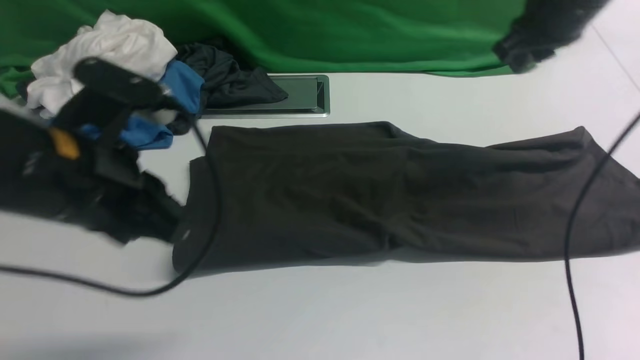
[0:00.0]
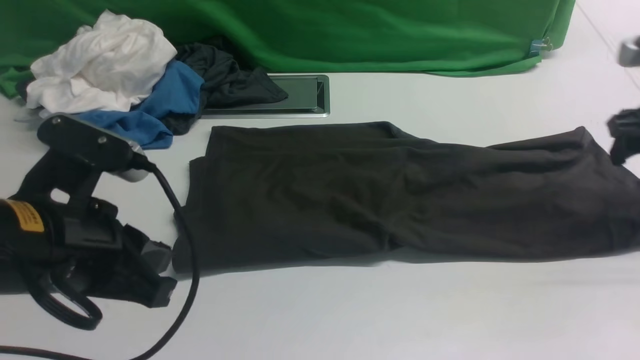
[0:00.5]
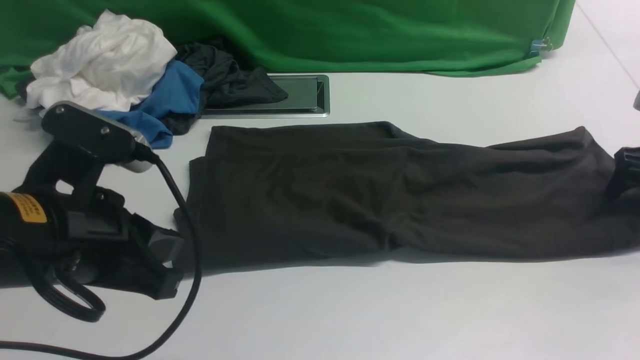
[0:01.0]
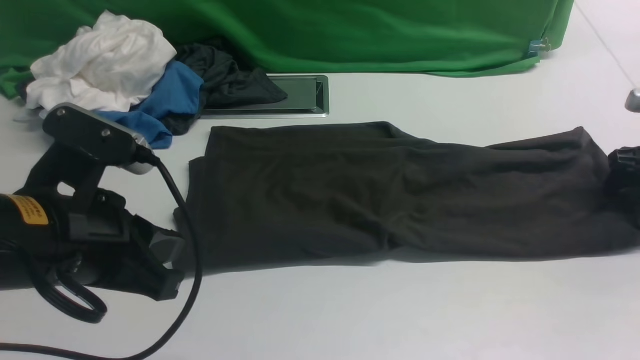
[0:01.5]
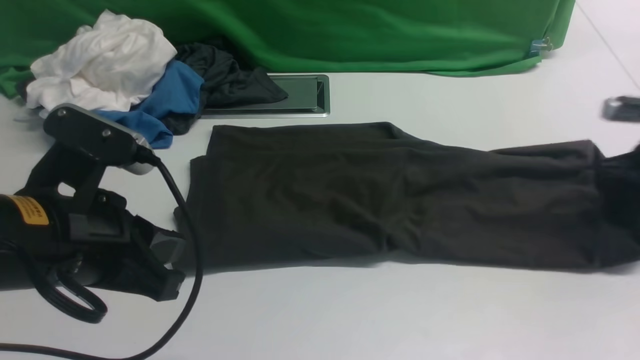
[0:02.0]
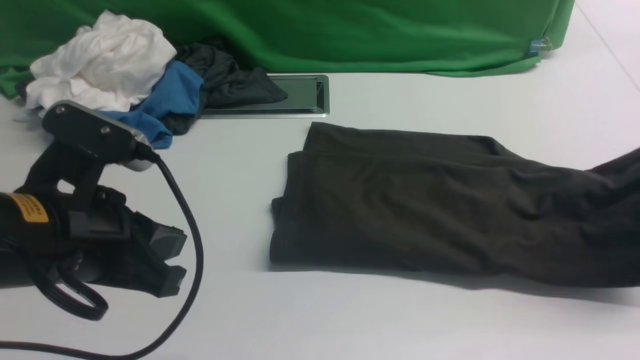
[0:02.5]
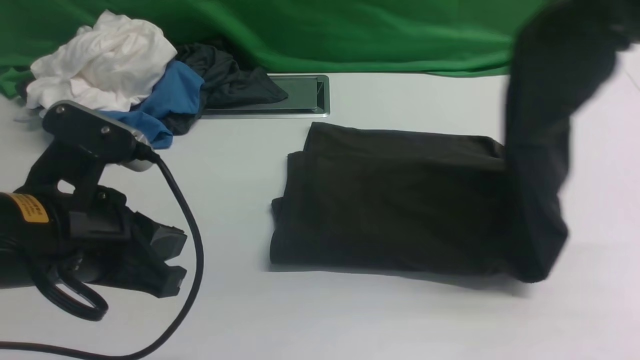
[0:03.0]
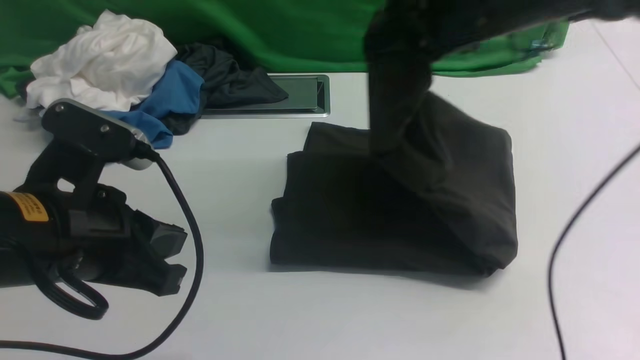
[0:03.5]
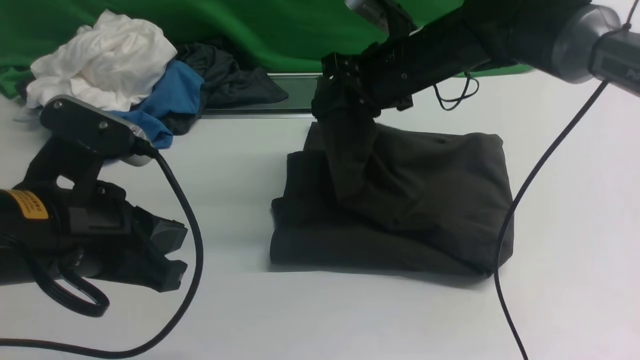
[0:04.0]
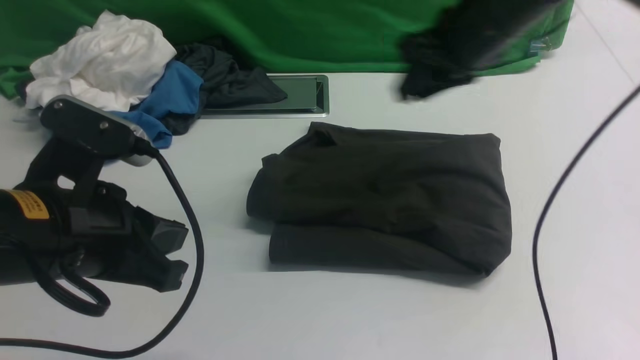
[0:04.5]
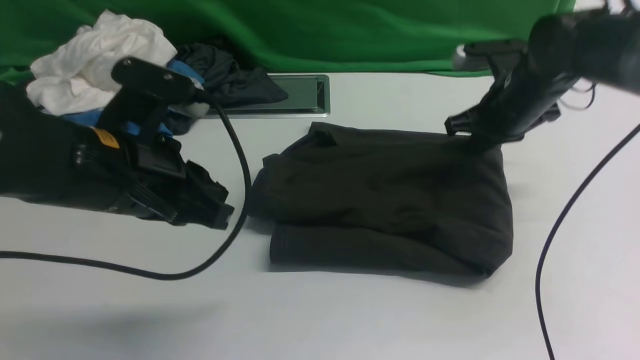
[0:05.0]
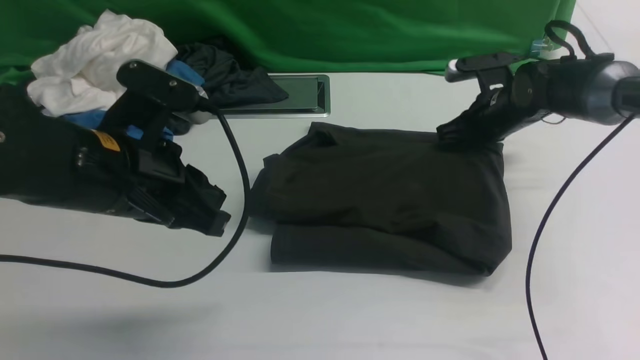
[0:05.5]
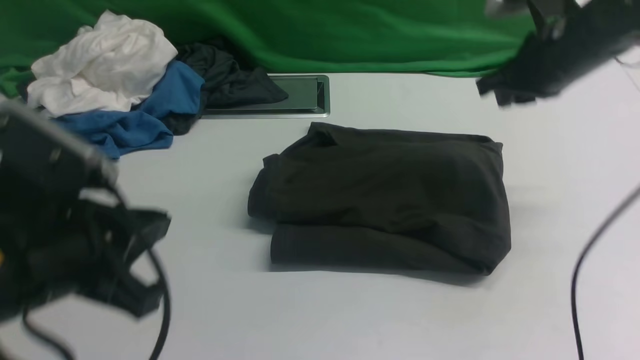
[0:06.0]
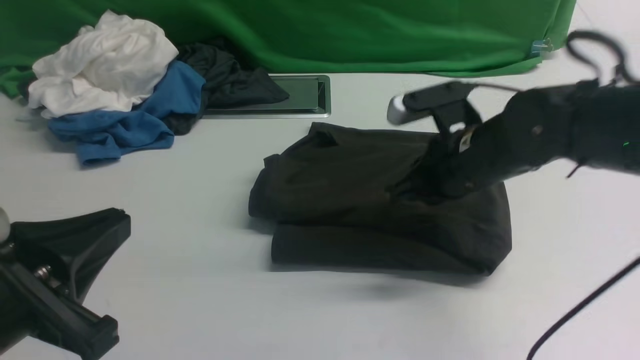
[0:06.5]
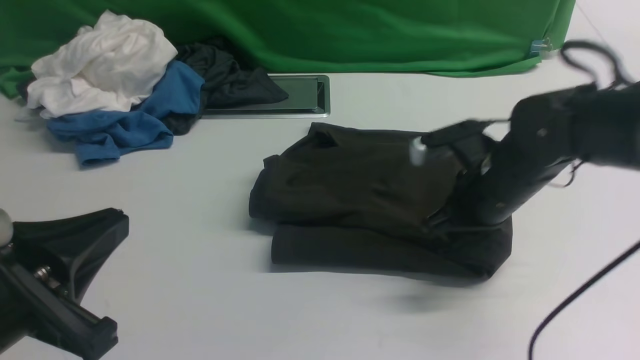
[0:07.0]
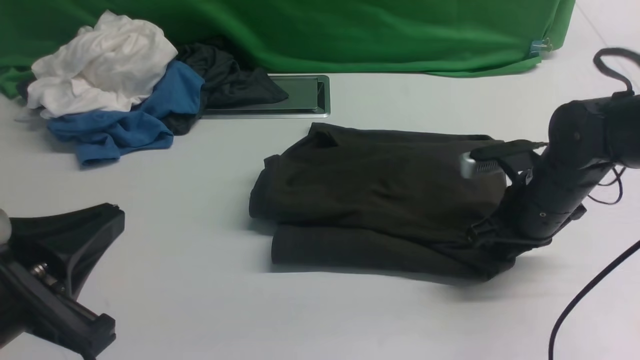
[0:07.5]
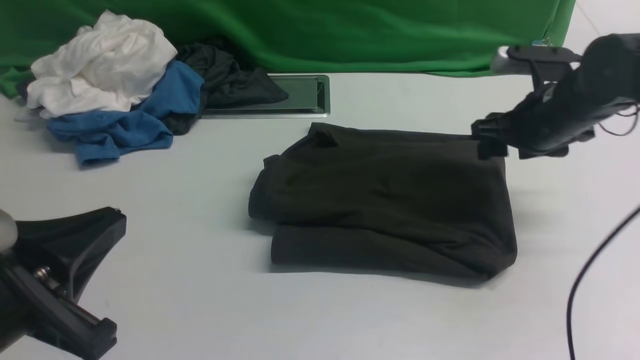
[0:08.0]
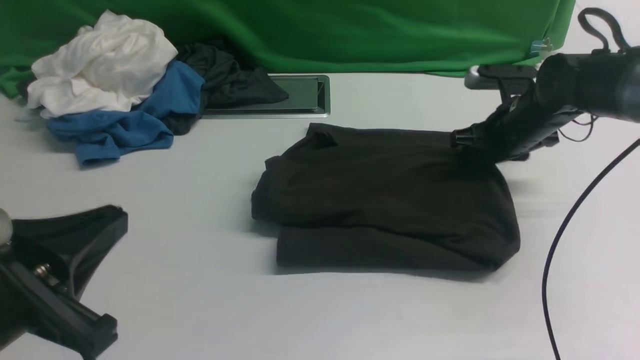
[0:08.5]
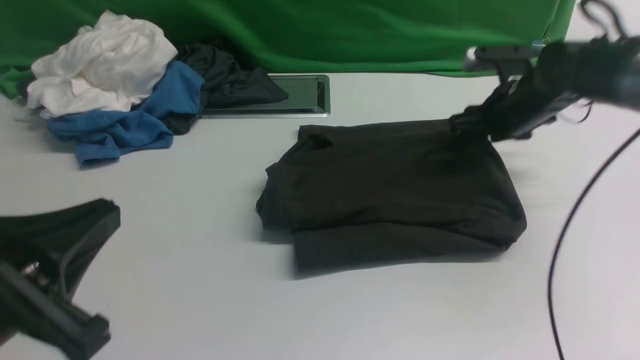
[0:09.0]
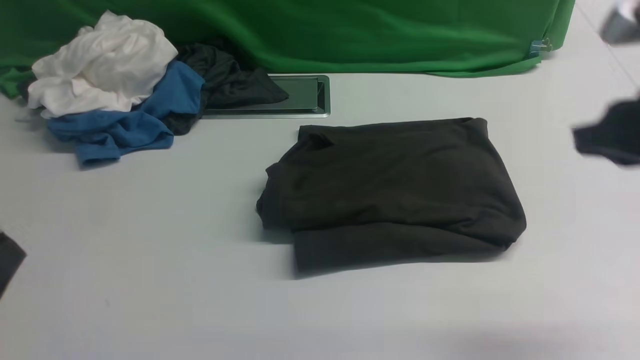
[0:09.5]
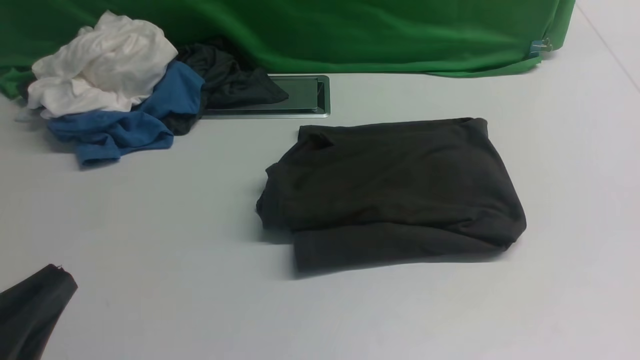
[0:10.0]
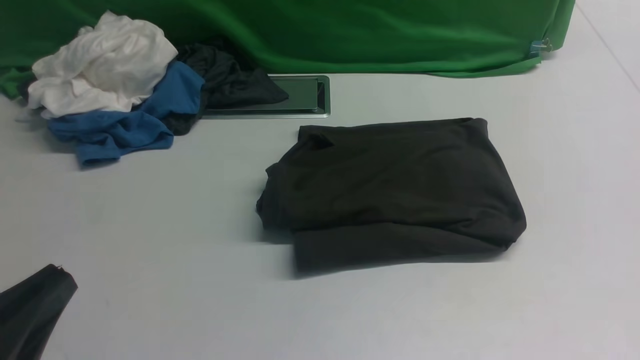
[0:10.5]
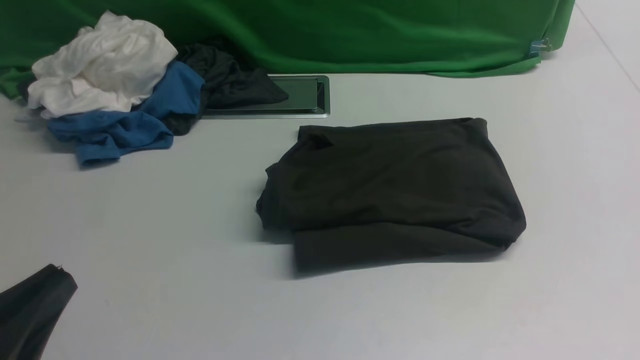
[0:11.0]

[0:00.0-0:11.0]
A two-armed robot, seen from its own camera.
Step, 0:00.0 to 0:02.0: use the right arm to clamp the right edge of the fabric.
Step, 0:02.5 to 0:04.0: use the right arm to drag the right edge of the fabric to the left and folds it over the left edge.
0:00.0 to 0:02.0: The right gripper heads to the right and downward, covering about 20 cm, and opens and closes again.
0:02.0 to 0:03.5: The right gripper shifts approximately 30 cm to the left and upward.
0:03.5 to 0:05.5: The left gripper is displaced forward by approximately 5 cm. The right gripper heads downward, to the right and forward, covering some 20 cm.
0:05.5 to 0:07.5: The two grippers go approximately 15 cm backward.
0:07.5 to 0:09.0: The right gripper is displaced forward by some 10 cm, and opens.
0:09.0 to 0:11.0: The left gripper ends up some 5 cm from where it was, while the right gripper travels backward by about 40 cm, and closes its fingers.

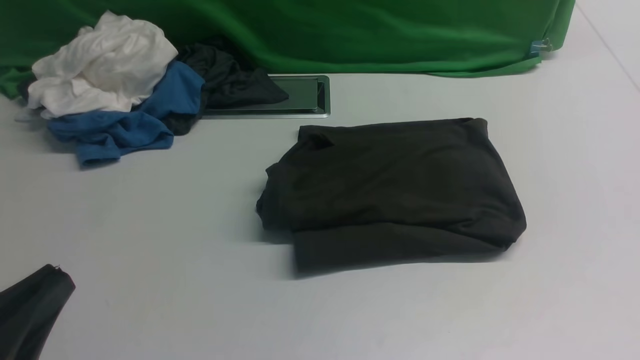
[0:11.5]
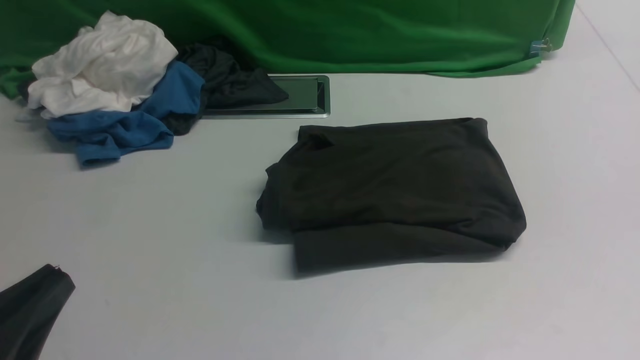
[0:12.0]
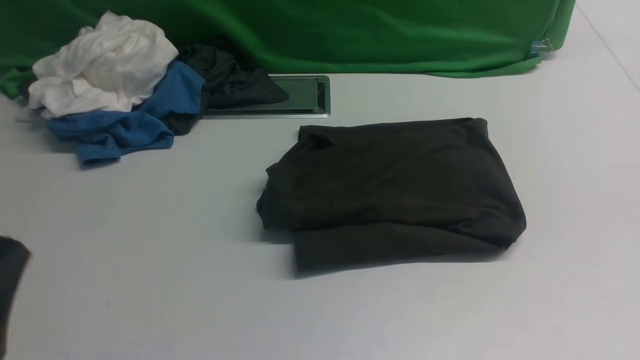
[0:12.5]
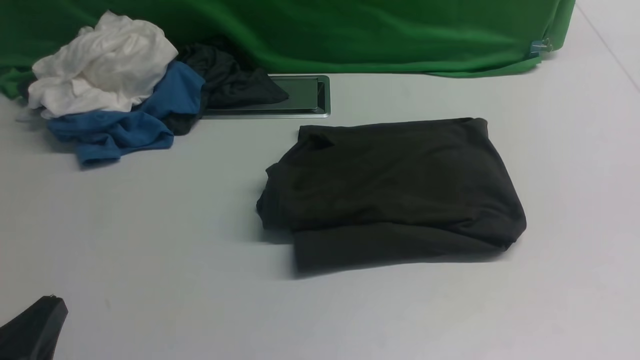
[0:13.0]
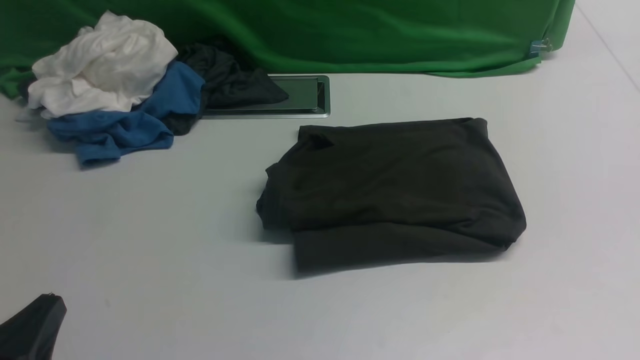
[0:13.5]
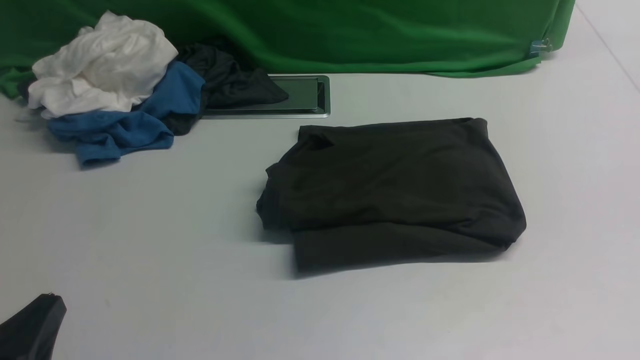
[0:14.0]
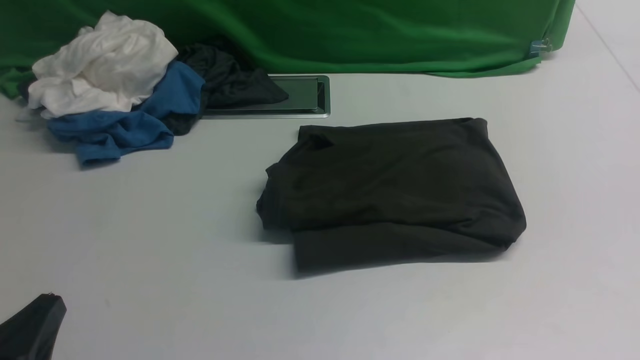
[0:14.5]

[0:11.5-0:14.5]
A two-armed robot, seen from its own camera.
0:11.5 to 0:13.0: The left gripper moves downward, approximately 5 cm.
0:13.0 to 0:14.5: Both grippers stay about where they are.

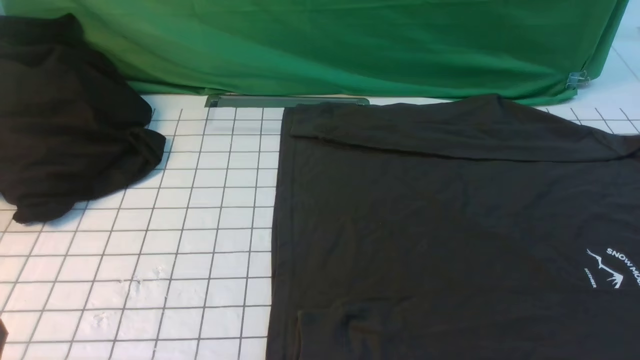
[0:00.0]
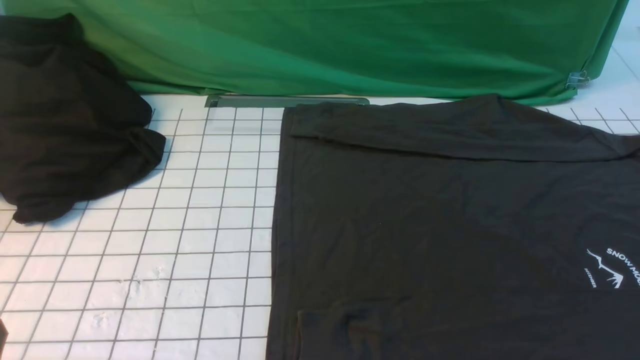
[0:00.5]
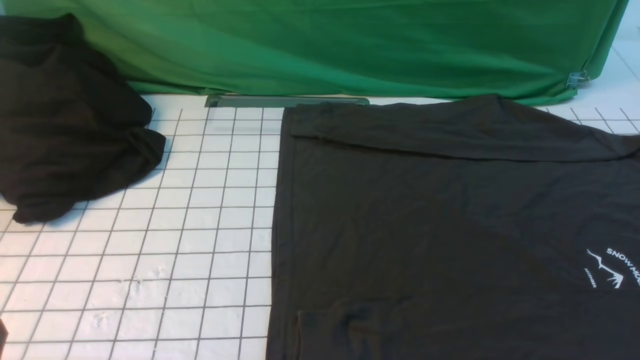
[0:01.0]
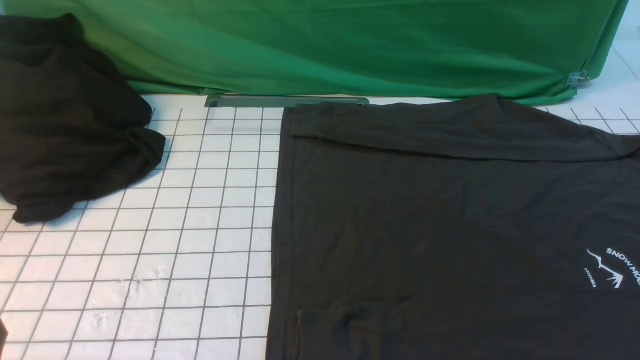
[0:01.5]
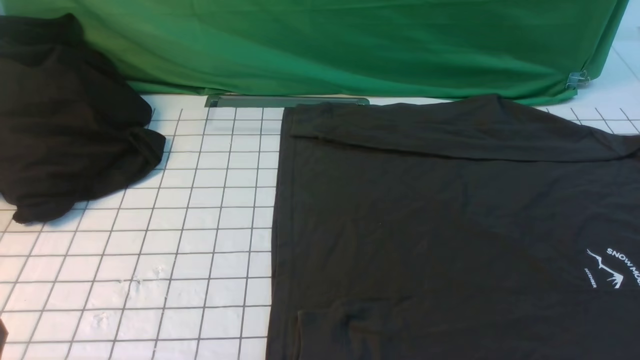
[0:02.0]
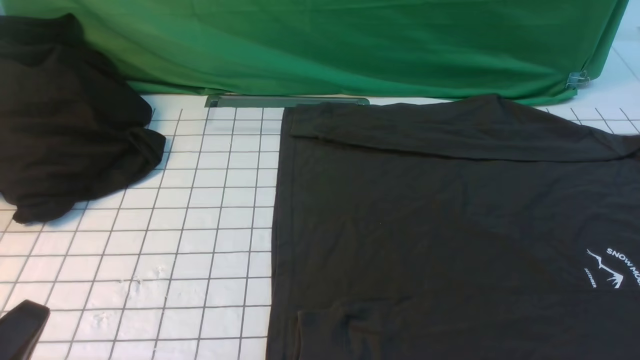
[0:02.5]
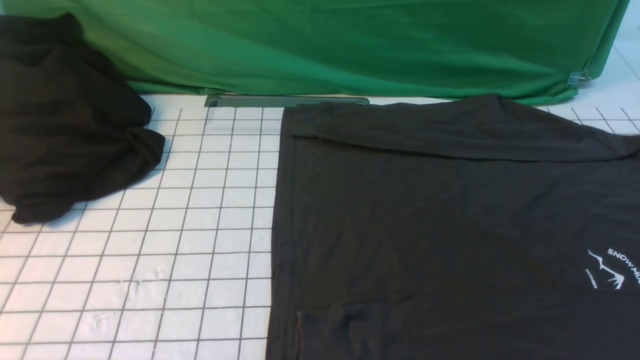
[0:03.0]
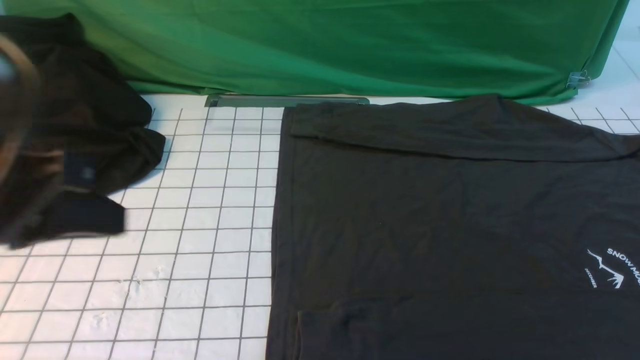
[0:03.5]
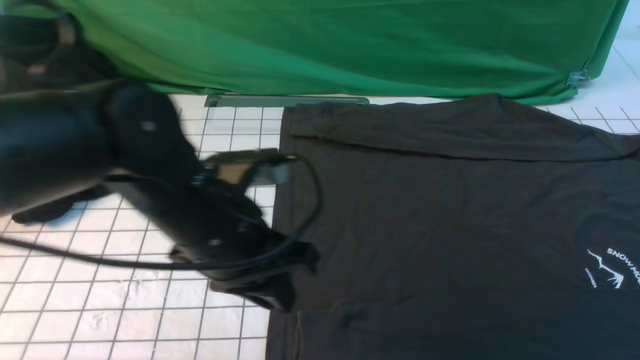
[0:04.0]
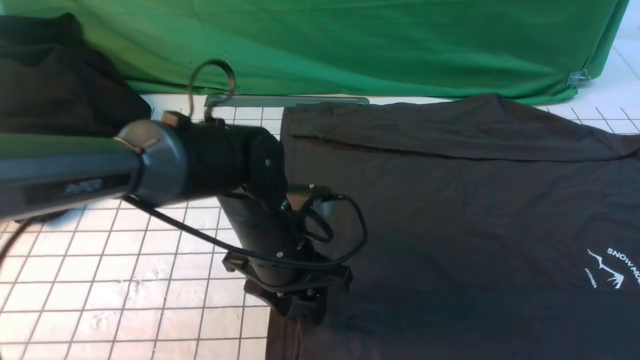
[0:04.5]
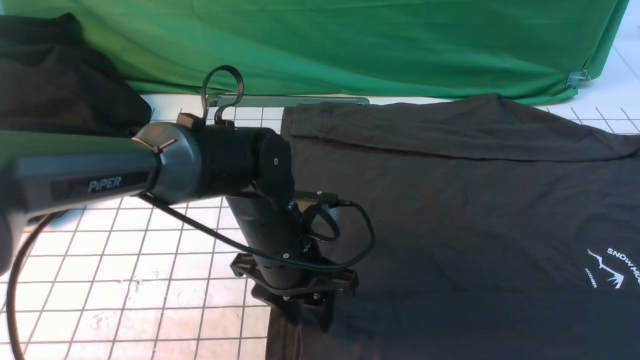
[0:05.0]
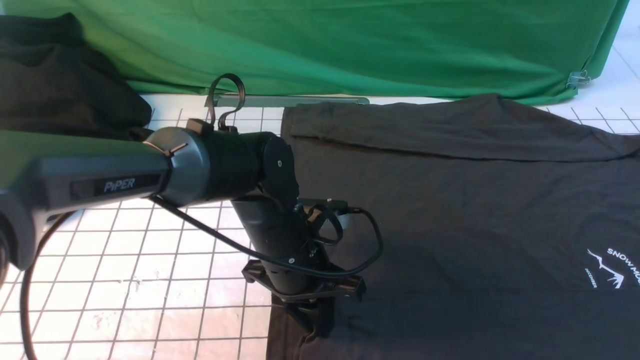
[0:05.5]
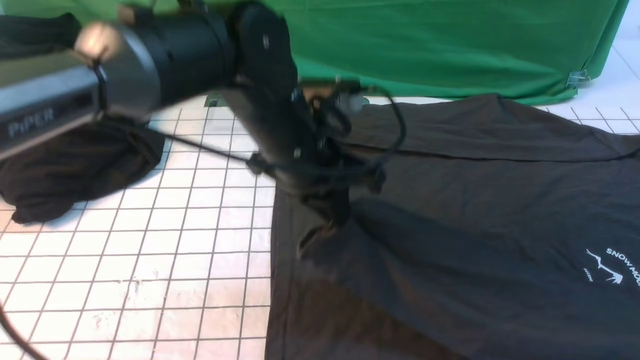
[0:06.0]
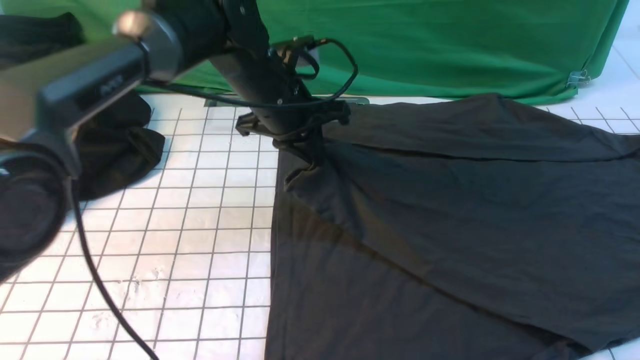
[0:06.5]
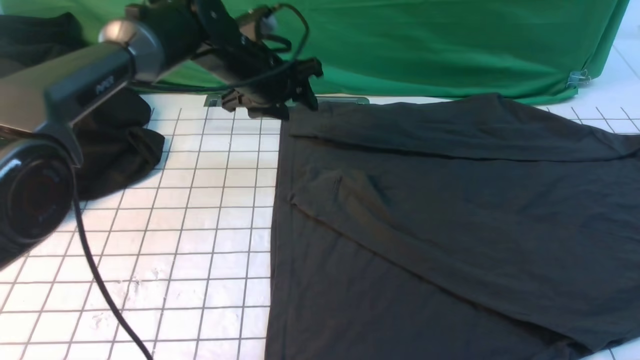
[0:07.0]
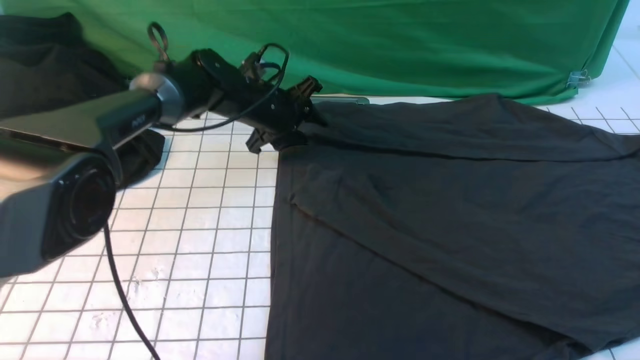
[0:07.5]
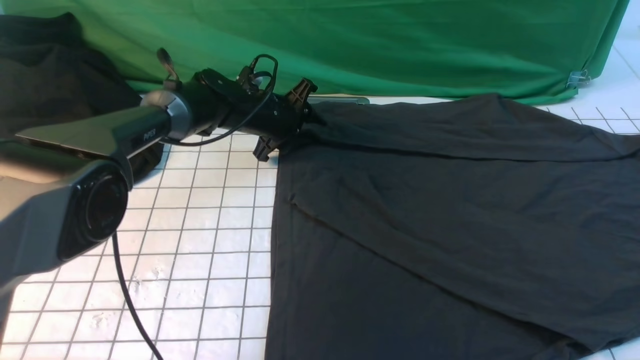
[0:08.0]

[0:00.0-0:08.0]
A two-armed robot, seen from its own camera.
Step, 0:00.0 to 0:05.5: use the left arm to clamp the cuff closest to it.
Step, 0:06.0 to 0:06.5: use the left arm to drag and place the cuff at the centered position on the left edge of the fabric.
0:02.0 to 0:04.0: The left gripper is displaced forward and to the right by some 25 cm, and opens its fingers. The right gripper moves upward and forward, about 10 cm.
0:04.0 to 0:06.0: The left gripper heads forward and to the right, covering roughly 10 cm, travels downward and back again, roughly 10 cm each way, and closes up.
0:06.0 to 0:08.0: The left gripper goes approximately 25 cm forward and downward, and opens up.
